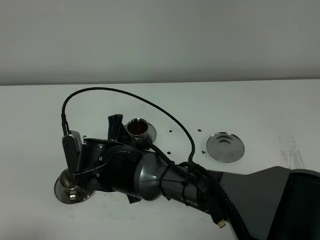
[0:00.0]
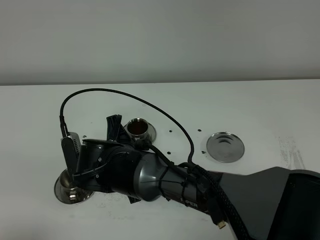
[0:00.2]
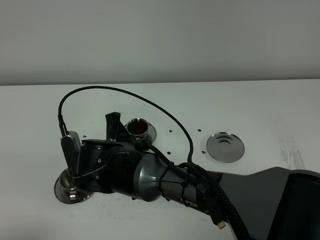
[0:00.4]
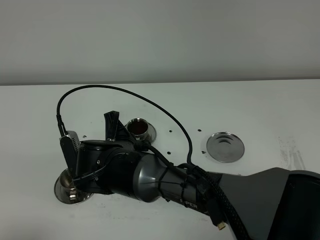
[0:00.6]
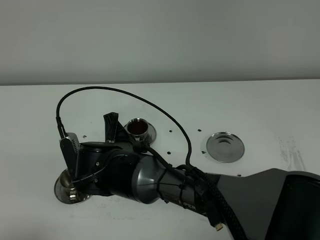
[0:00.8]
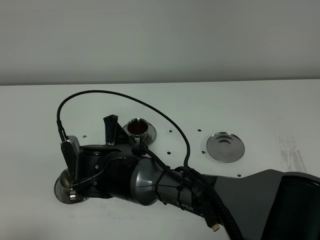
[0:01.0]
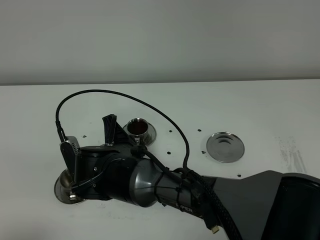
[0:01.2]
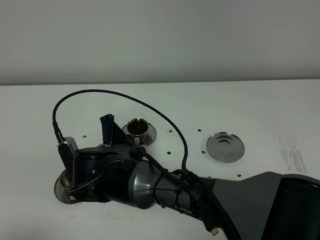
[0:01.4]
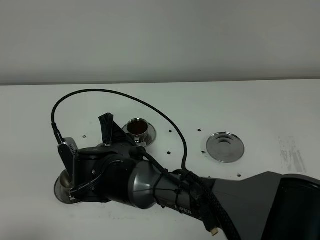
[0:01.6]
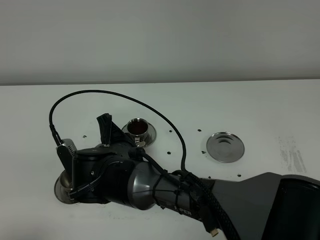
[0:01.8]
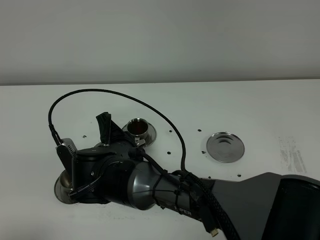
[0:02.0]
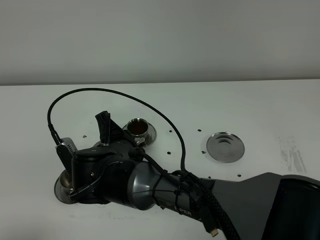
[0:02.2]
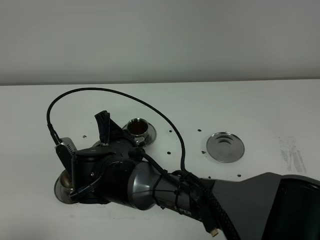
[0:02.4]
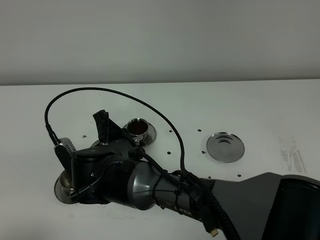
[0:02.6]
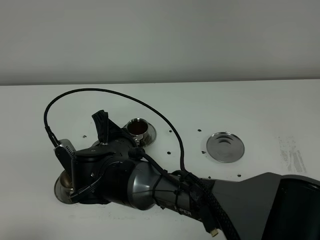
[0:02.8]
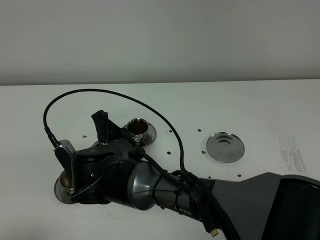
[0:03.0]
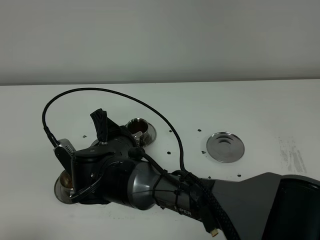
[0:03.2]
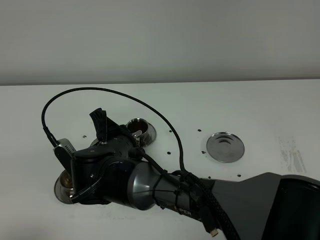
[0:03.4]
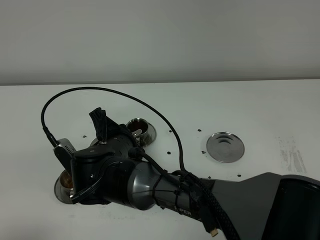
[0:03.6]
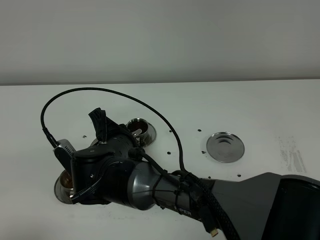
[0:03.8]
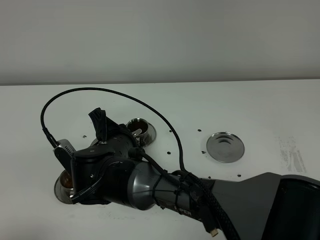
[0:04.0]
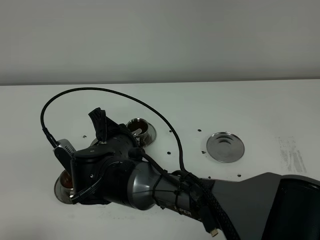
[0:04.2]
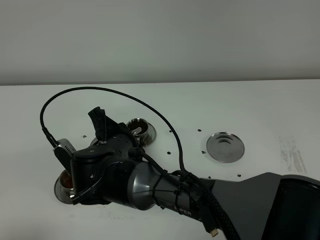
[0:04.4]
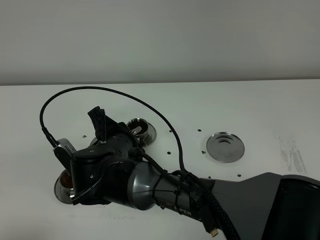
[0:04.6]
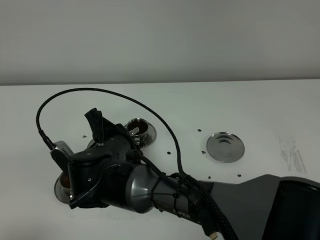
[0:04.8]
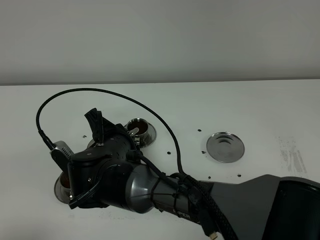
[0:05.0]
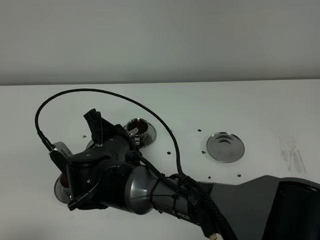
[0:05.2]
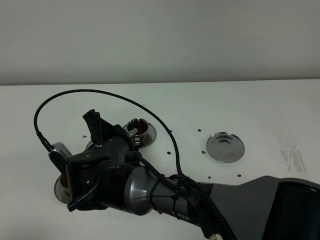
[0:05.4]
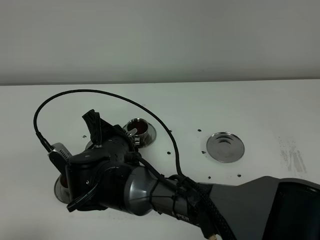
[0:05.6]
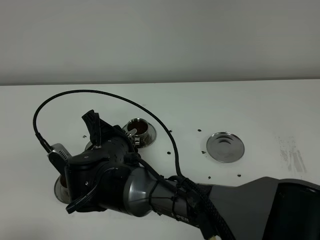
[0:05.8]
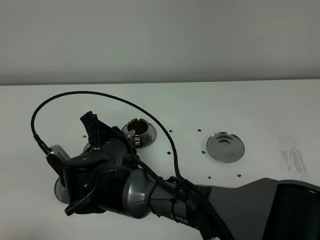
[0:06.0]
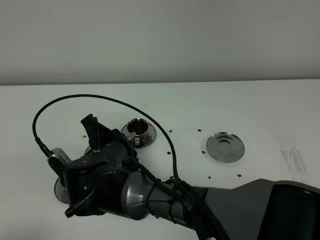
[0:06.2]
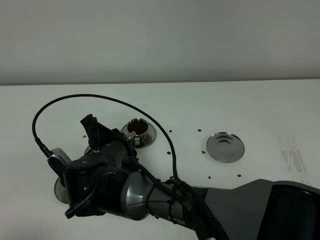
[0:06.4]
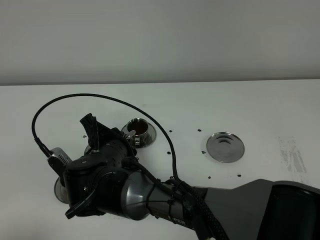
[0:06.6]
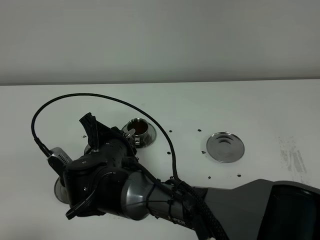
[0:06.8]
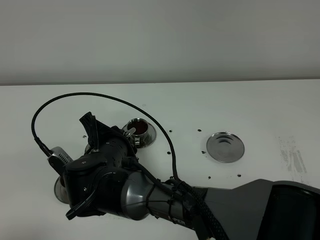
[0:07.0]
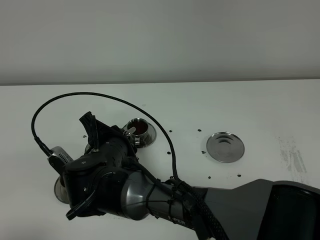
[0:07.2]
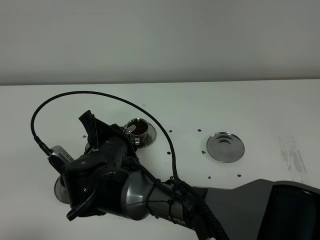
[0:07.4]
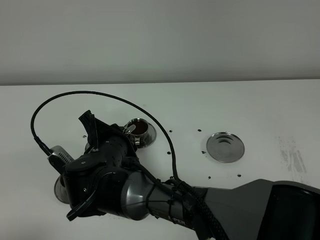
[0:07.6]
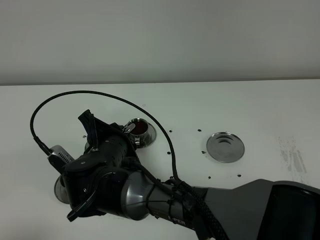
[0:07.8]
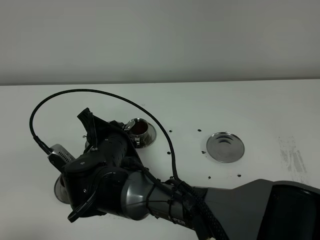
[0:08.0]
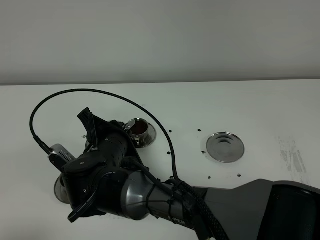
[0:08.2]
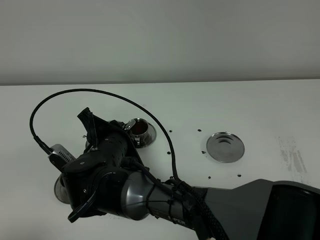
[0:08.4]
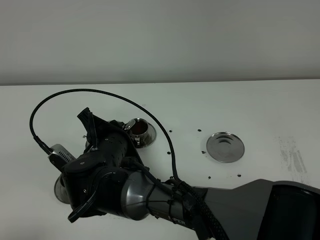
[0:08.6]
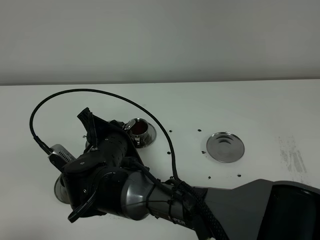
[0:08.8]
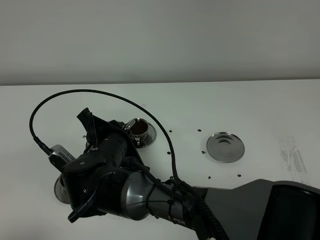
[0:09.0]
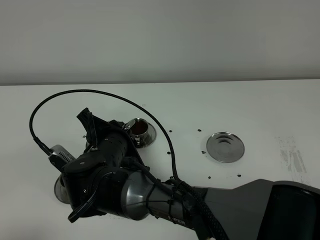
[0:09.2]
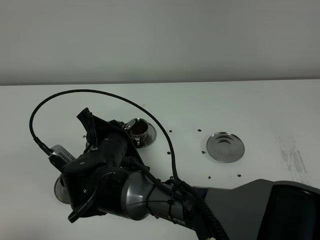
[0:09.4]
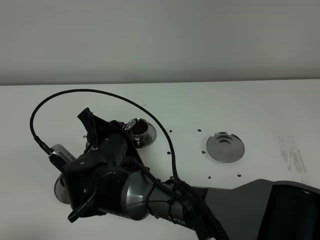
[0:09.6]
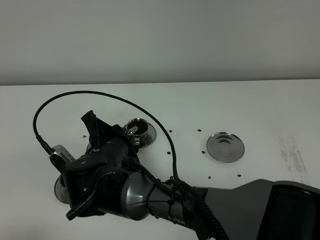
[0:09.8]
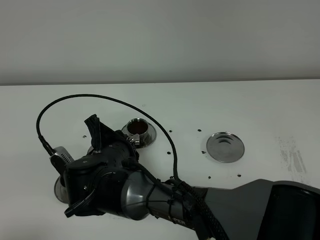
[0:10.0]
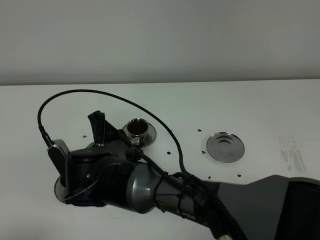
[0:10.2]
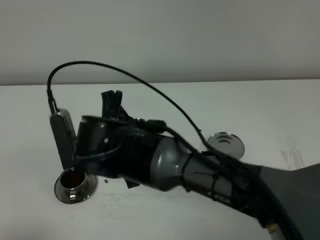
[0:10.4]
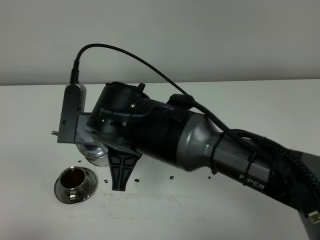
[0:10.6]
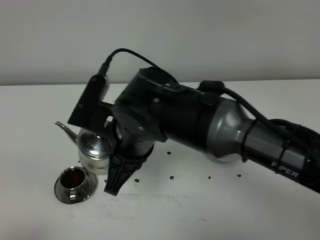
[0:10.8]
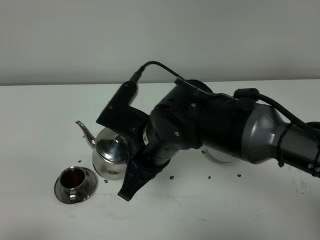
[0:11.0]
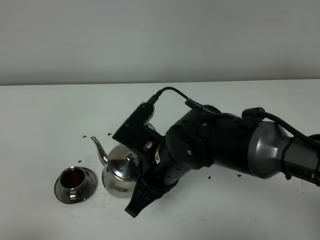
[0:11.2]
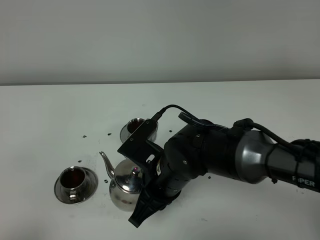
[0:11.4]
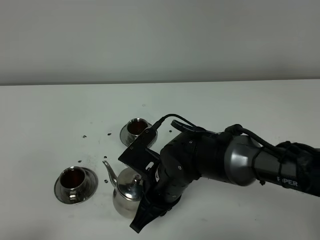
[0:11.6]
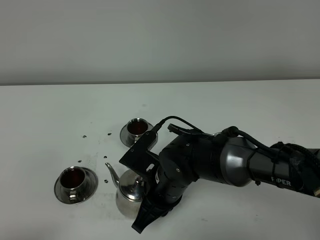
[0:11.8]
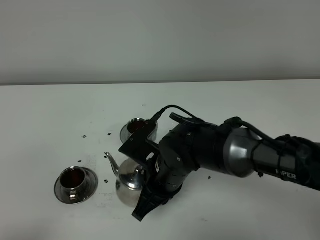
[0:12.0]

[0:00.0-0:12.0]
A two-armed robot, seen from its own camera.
Task of the whole recording: grasp the stainless steel teapot and pour the tea into the two stainless steel teacups one by one, put the stainless steel teapot back in its original place.
Step, 0:00.0 to 0:10.4: Pour tea into the teacup with the right gripper.
0:00.0 to 0:03.0: The grippers stay close to where they were, moving slightly.
0:03.0 to 0:04.4: Both grippers stay about where they are.
0:04.4 to 0:06.0: Neither gripper changes place.
0:06.0 to 0:07.6: Both grippers stay put.
0:07.6 to 0:09.0: Neither gripper changes place.
0:09.0 to 0:10.4: The right gripper heads upward, covering some 5 cm.
0:10.4 to 0:12.0: The right gripper moves to the right and downward, approximately 10 cm.

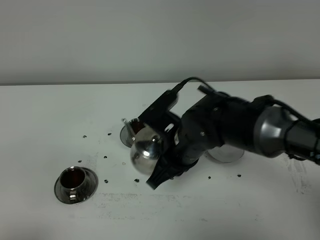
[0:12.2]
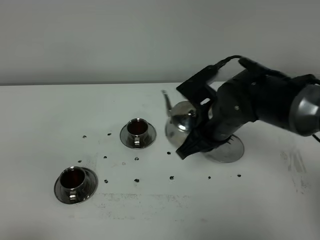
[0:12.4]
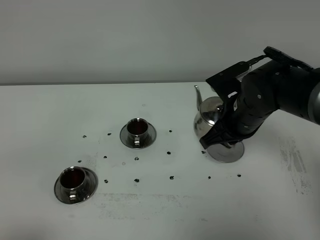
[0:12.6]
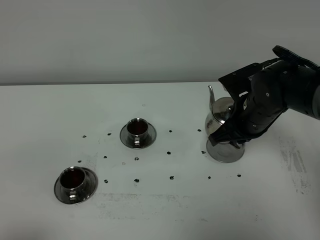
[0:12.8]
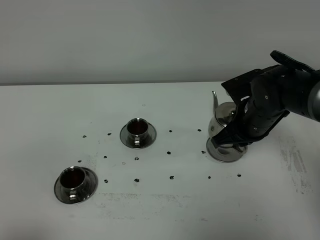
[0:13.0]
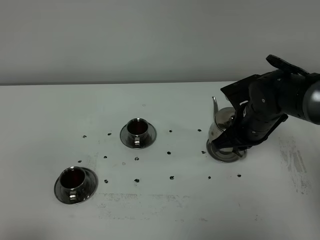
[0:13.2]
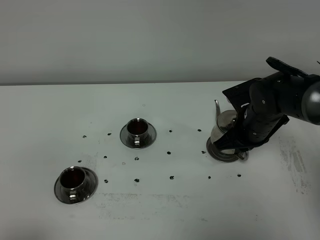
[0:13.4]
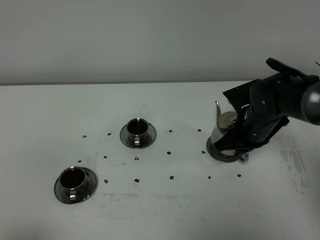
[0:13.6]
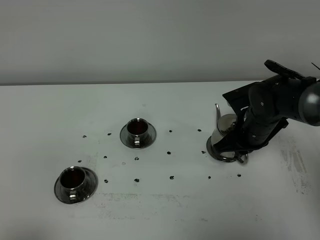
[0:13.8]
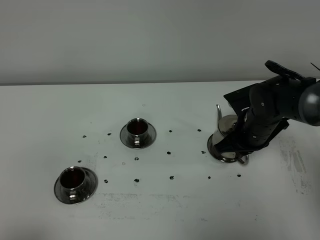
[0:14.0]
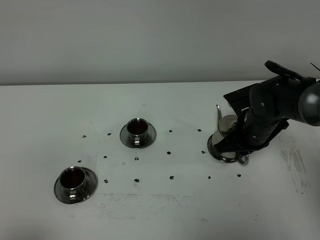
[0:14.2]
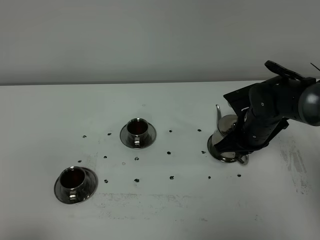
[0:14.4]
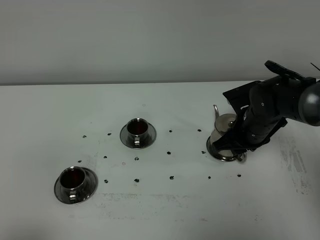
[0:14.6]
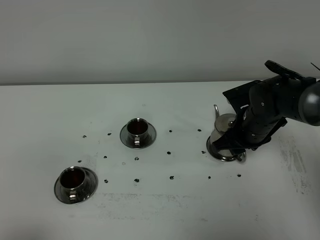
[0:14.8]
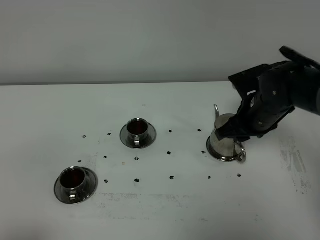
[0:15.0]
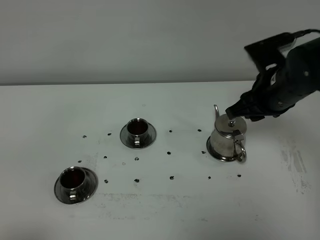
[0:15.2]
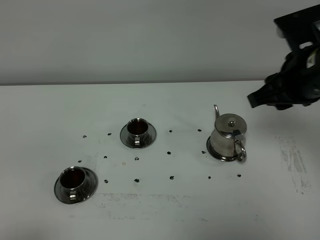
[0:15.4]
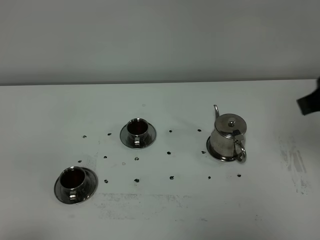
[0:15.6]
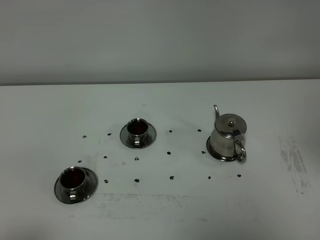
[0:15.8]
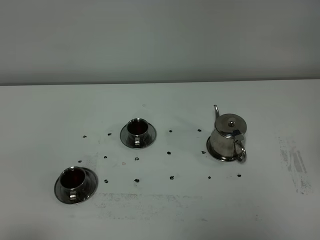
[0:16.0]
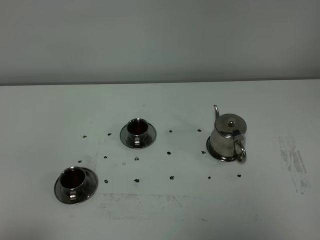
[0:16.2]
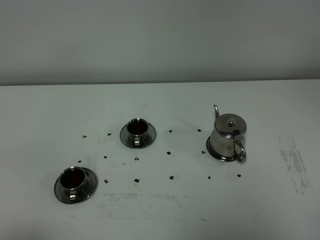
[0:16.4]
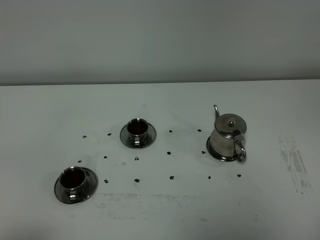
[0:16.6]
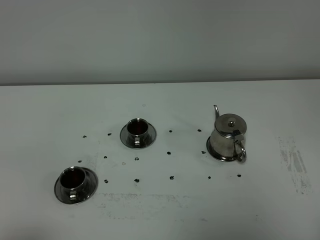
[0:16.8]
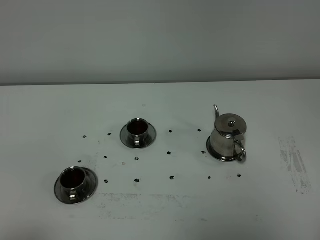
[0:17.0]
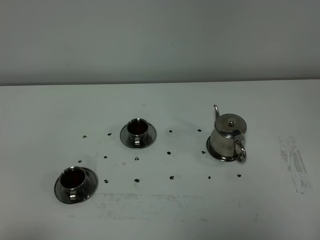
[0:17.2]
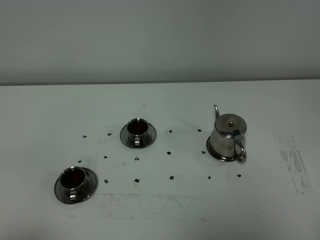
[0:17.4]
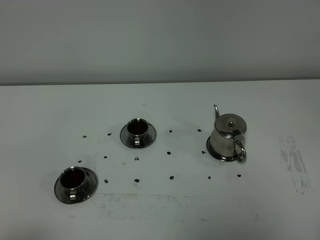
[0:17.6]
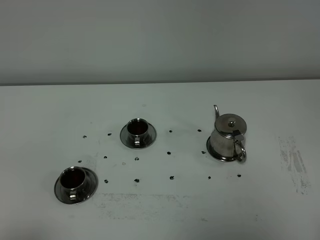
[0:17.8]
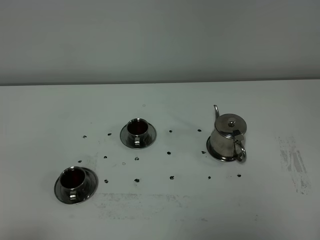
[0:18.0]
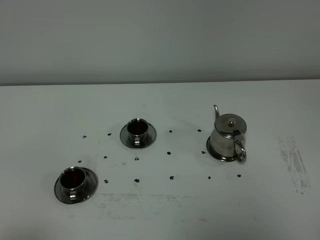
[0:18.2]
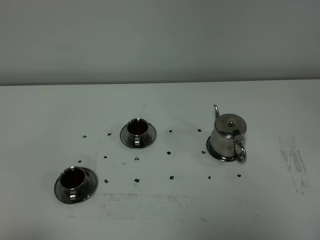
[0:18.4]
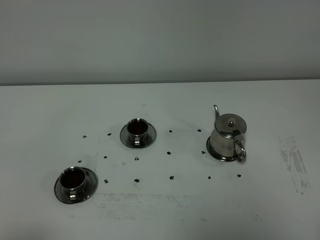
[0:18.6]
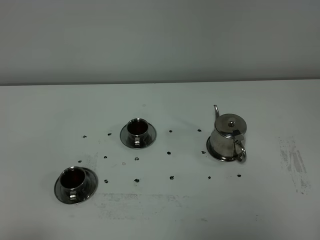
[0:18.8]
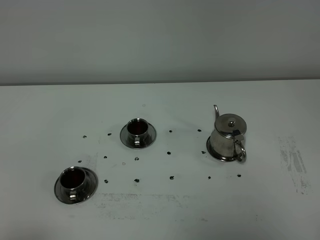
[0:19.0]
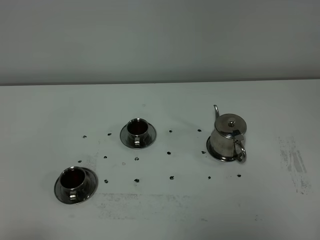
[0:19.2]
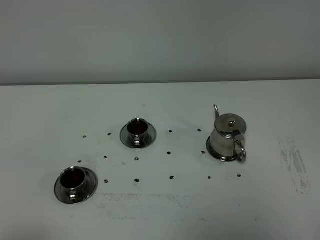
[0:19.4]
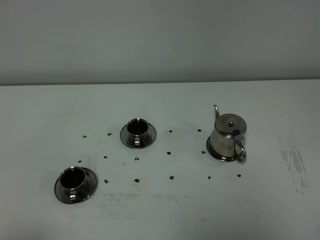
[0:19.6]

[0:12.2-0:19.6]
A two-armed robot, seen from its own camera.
Task of the whole recording: grasp the stainless steel teapot and pour the tea into the two stainless steel teacups one by one, put the stainless steel teapot back in its original place.
0:12.2 to 0:13.6: The right gripper goes approximately 15 cm to the right and forward.
0:13.6 to 0:15.2: The right gripper moves upward, about 10 cm, and opens.
0:15.2 to 0:16.6: The right gripper moves backward, approximately 35 cm.
0:18.2 to 0:19.6: Both grippers stay about where they are.

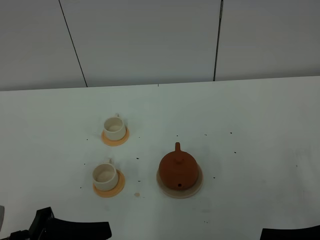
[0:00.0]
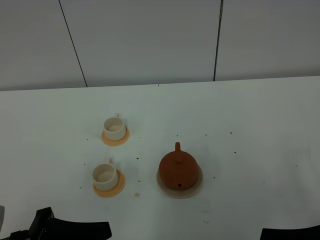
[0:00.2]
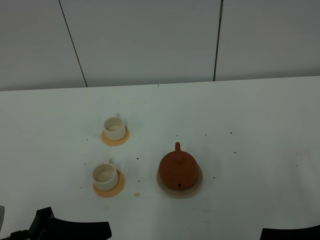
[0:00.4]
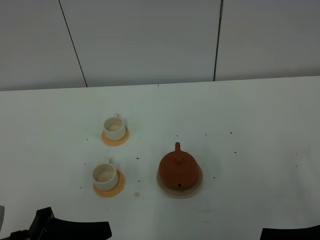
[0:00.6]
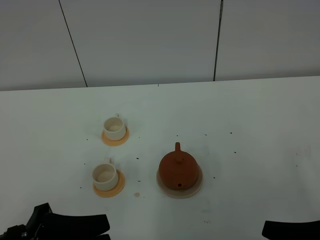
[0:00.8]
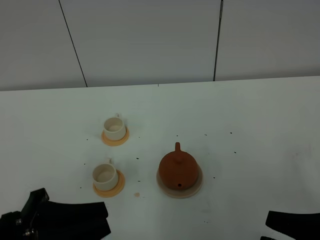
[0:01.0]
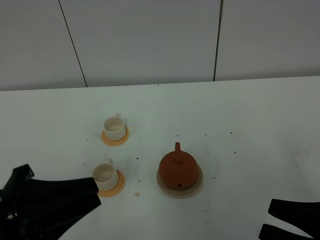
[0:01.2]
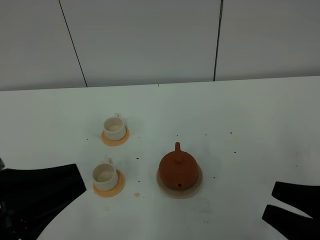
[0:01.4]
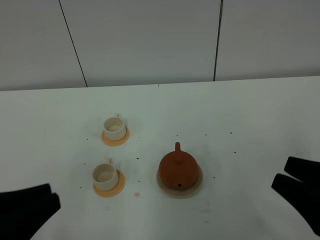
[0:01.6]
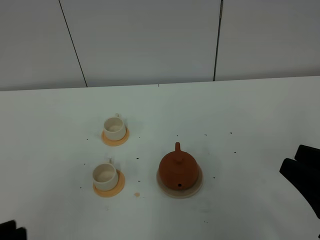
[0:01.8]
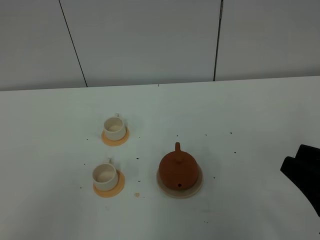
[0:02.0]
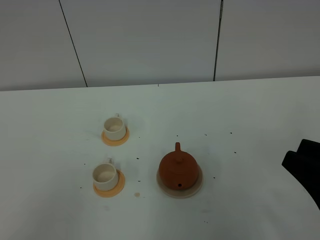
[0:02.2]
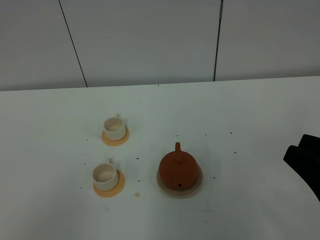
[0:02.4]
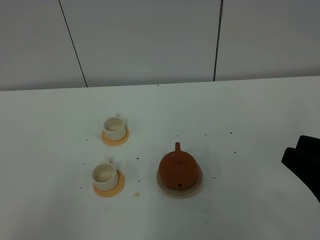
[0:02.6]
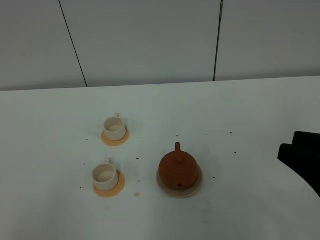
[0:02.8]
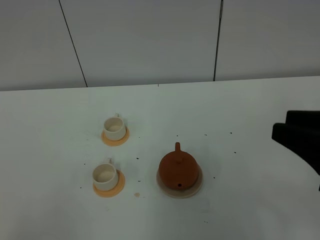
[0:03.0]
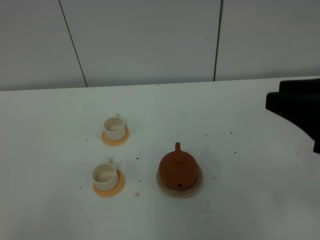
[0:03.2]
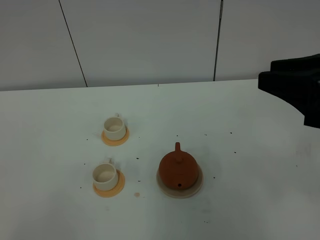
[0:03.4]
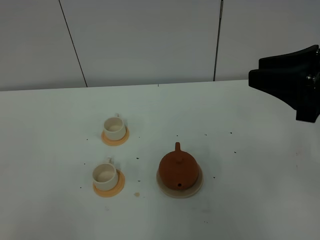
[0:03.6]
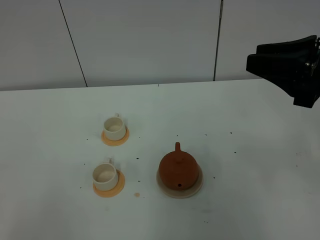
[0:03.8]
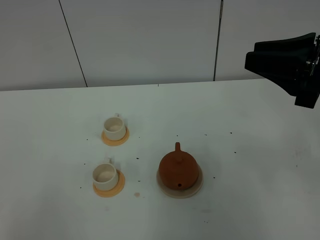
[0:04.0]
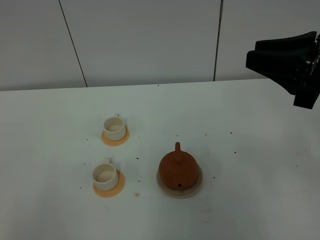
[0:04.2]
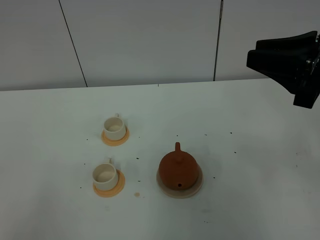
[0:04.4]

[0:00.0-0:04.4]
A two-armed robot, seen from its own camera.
Task of the whole recording: grasp the brown teapot and pour the tea into the two white teacups one by one, put the brown teapot back in its original place.
0:00.0 to 0:01.4: The left gripper moves upward, roughly 10 cm.
0:01.4 to 0:03.0: The left gripper goes some 10 cm backward; the right gripper shifts approximately 10 cm upward and forward.
0:03.0 to 0:04.4: The right gripper heads forward, covering roughly 10 cm.
